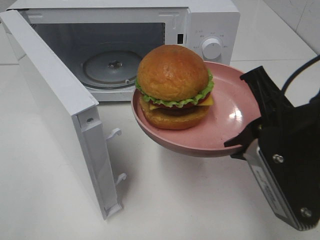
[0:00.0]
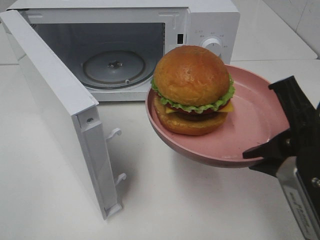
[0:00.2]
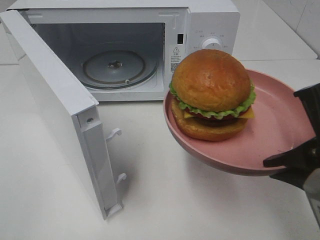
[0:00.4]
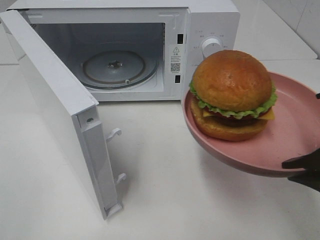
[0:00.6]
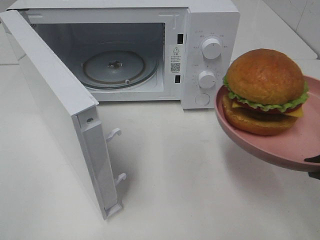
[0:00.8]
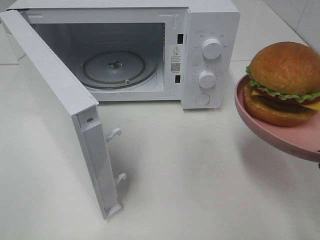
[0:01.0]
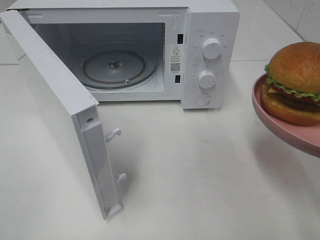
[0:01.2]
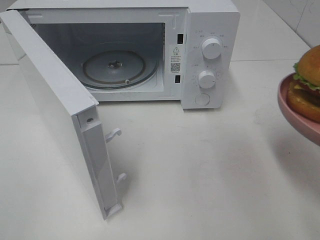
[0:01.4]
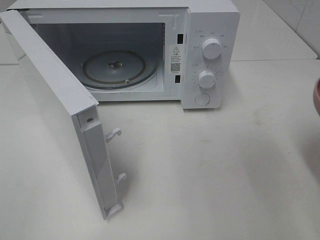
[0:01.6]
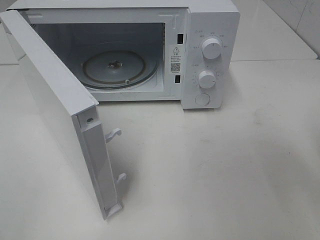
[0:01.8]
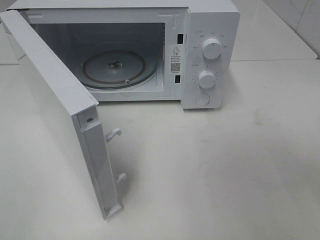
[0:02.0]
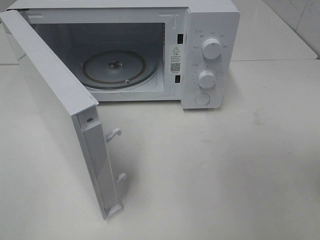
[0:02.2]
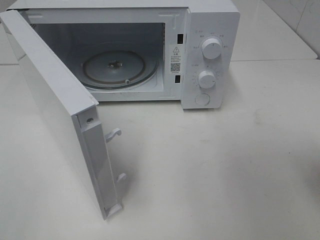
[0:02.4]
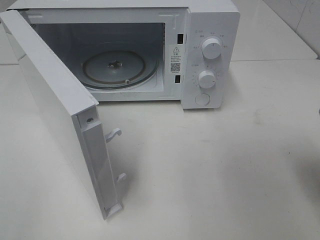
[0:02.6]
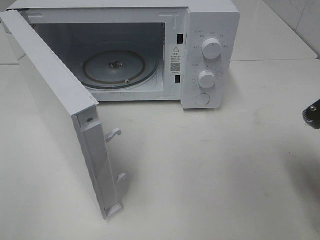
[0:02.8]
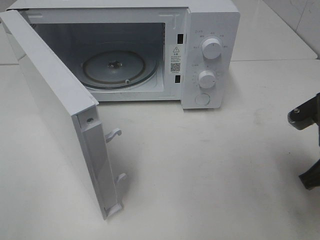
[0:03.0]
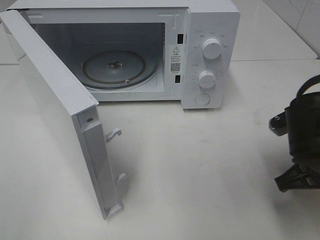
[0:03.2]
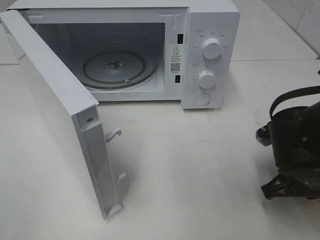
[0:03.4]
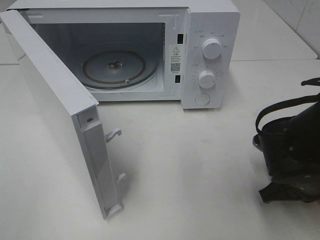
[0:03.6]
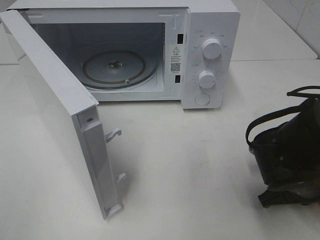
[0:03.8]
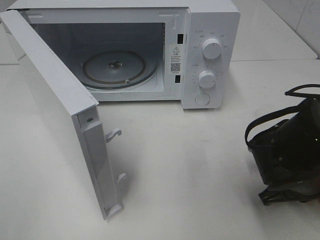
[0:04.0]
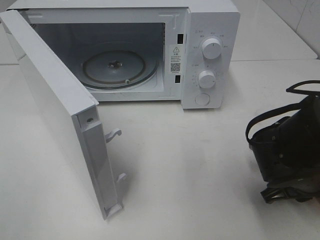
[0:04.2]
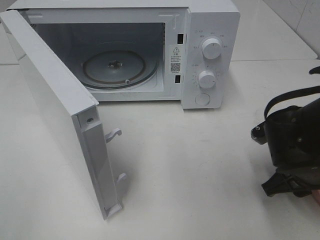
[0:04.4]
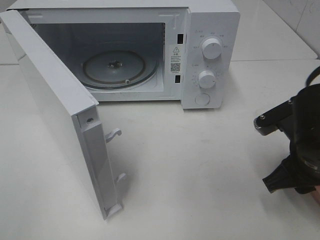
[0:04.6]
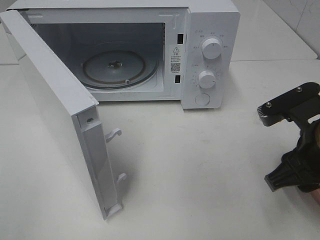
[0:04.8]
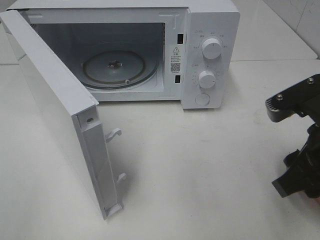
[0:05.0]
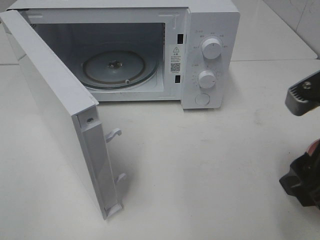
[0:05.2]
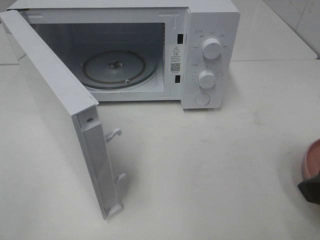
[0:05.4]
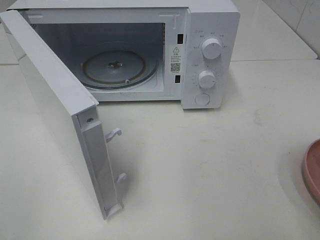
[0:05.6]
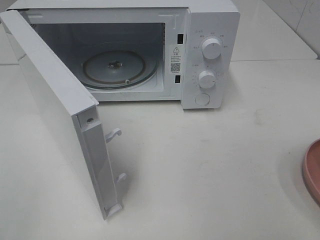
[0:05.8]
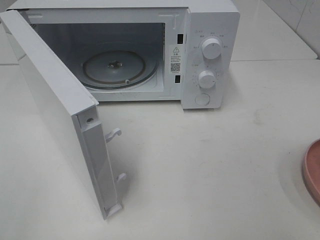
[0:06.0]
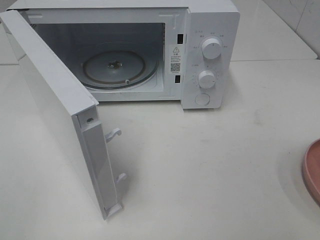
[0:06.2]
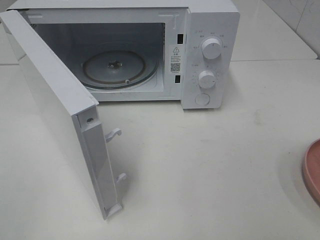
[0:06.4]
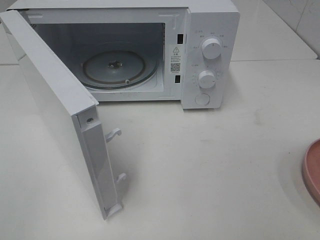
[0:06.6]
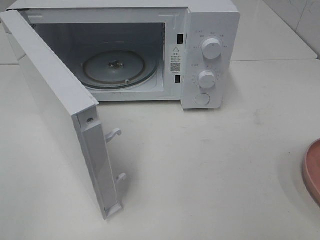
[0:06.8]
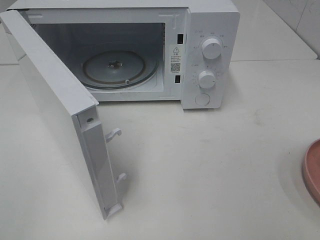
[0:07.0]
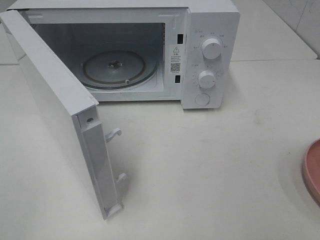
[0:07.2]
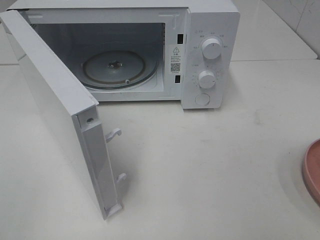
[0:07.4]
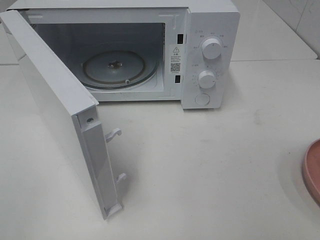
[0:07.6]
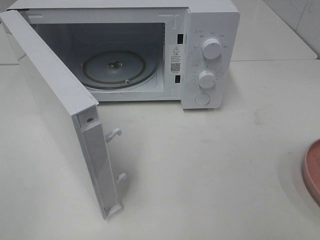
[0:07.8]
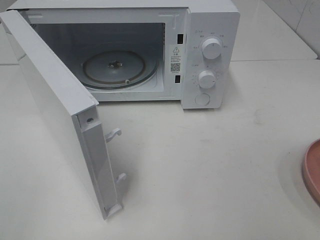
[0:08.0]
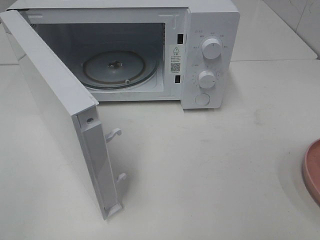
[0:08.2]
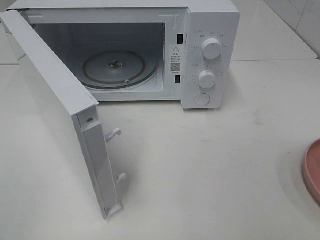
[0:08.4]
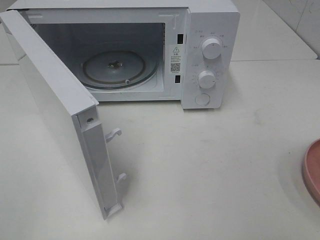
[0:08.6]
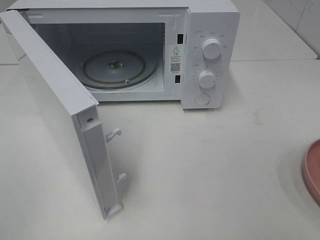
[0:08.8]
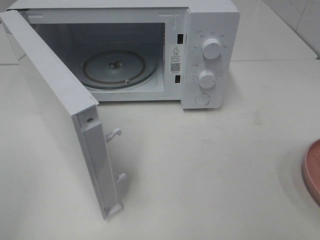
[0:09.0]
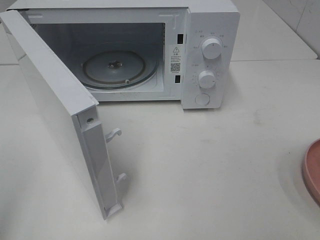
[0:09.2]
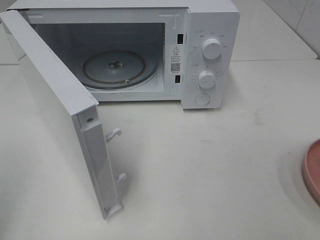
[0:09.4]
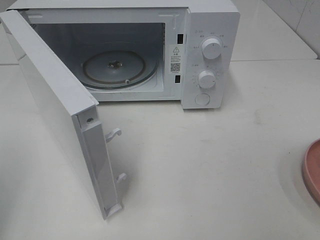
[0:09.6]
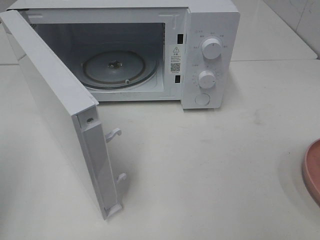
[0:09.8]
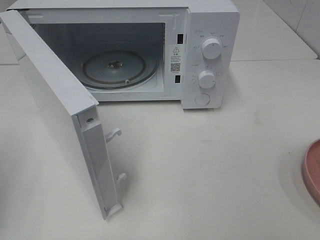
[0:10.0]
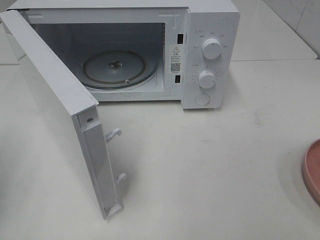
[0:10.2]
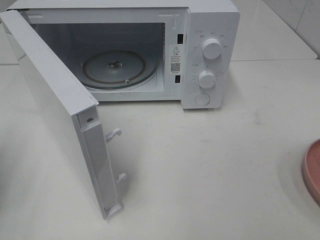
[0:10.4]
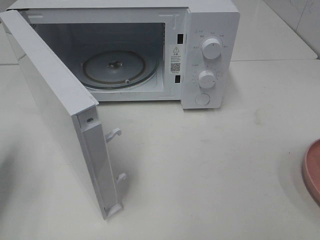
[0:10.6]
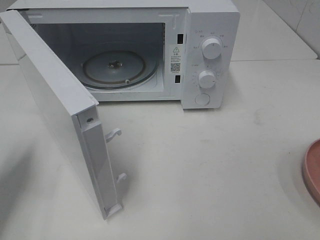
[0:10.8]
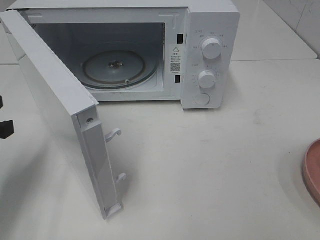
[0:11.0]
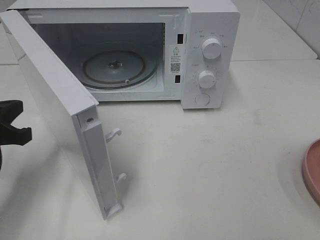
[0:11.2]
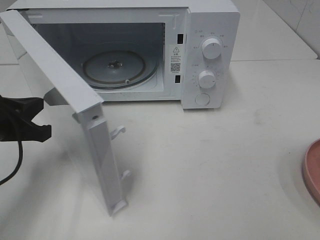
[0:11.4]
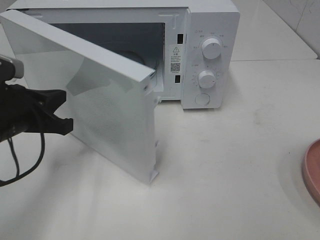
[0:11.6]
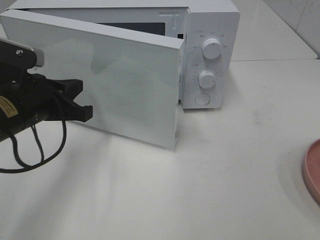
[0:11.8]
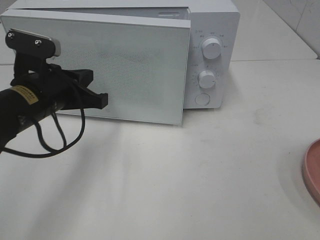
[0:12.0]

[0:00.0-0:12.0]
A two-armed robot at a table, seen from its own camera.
Task of the whole recording: Heat the burger.
Step, 0:00.0 to 0:04.6: Right hand: place the plate on the table.
0:00.0 to 0:01.6: The right gripper shifts roughly 10 cm to the right.
0:01.6 to 0:03.0: The right gripper goes approximately 10 cm forward and downward.
0:03.0 to 0:04.4: The right gripper heads downward, covering some 5 cm, and opens its fingers.
0:04.4 to 0:06.0: The right gripper shifts approximately 25 cm upward and backward.
0:10.4 to 0:12.0: The left gripper heads to the right and forward, covering some 20 cm.

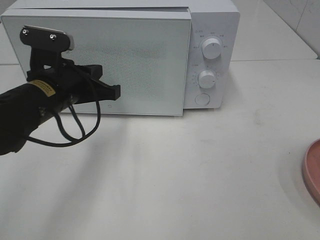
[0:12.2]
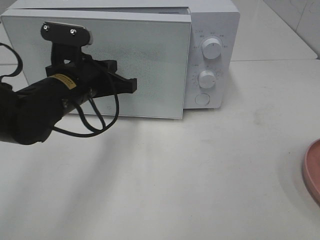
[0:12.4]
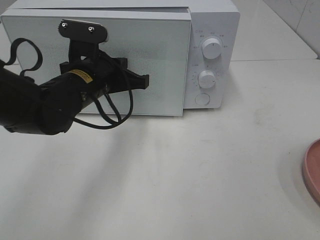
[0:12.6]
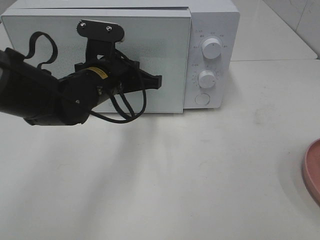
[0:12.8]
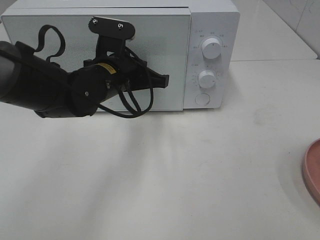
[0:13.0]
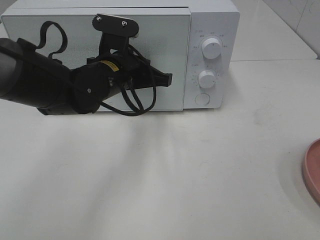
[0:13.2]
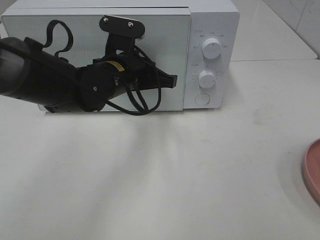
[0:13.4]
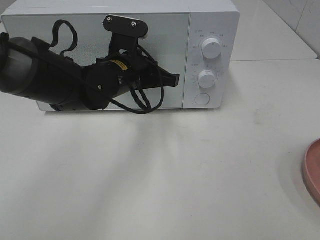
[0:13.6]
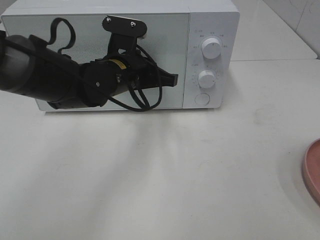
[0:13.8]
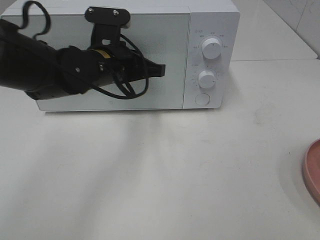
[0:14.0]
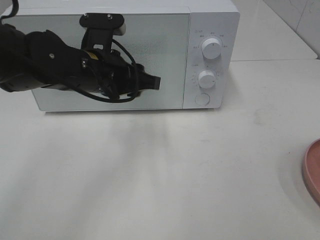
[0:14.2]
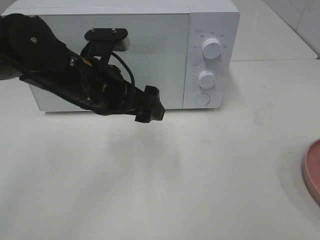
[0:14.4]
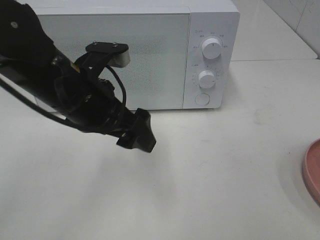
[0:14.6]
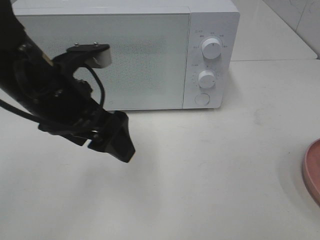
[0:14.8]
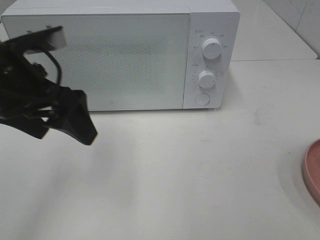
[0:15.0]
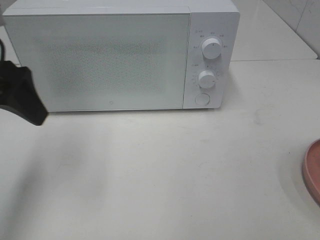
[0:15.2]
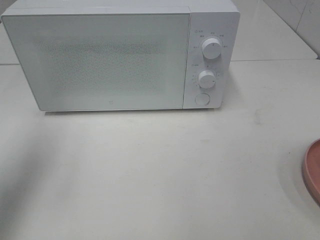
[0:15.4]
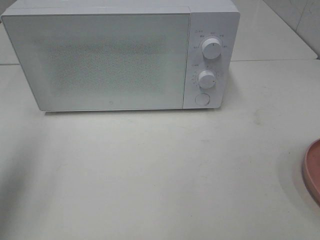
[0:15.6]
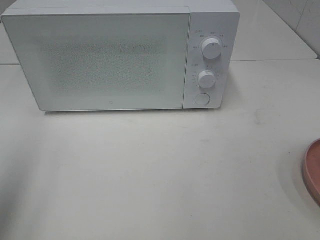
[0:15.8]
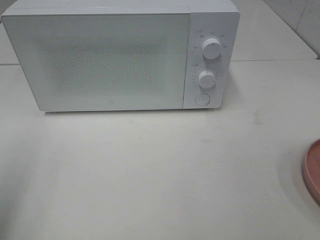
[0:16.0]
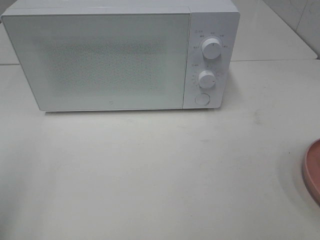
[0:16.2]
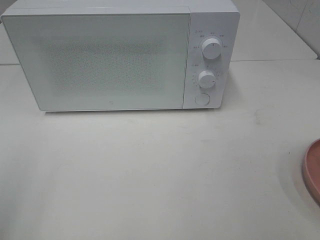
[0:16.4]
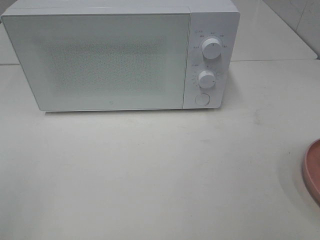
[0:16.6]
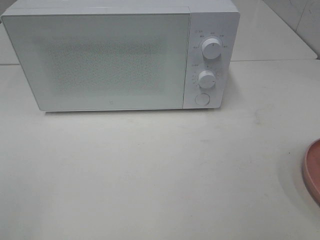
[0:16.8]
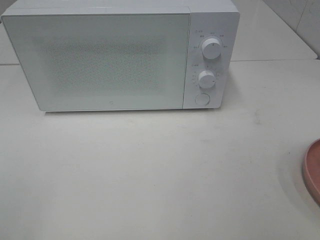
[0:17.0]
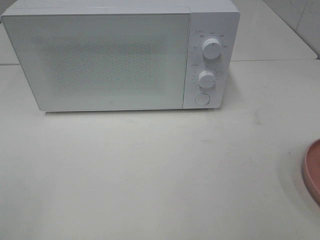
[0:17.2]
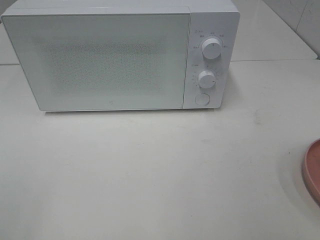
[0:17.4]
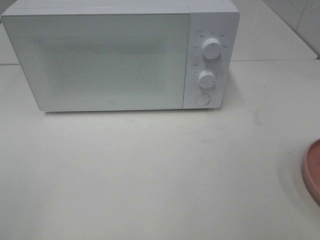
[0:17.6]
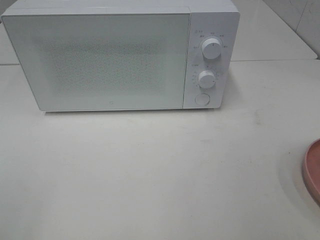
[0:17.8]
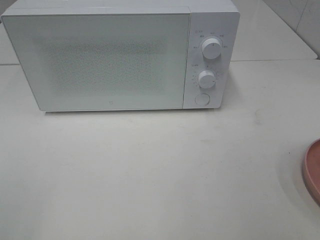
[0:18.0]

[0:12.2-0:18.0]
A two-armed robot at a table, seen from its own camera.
Task of the whole recording: Heat the burger.
Step, 0:12.2 to 0:14.2: Left hand: close the microwave door.
0:12.2 to 0:13.6: The left gripper is displaced to the right and forward by some 10 cm.
0:13.6 to 0:15.0: The left gripper heads to the left, backward and upward, covering roughly 20 cm, and opens up.
0:15.0 to 0:16.6: The left gripper goes about 25 cm backward and to the left.

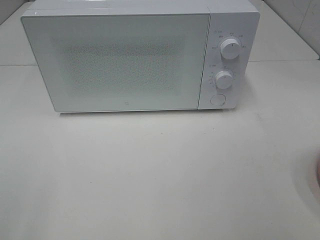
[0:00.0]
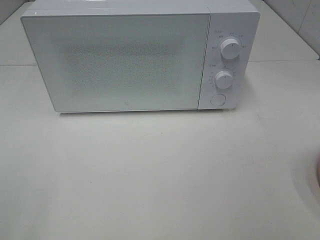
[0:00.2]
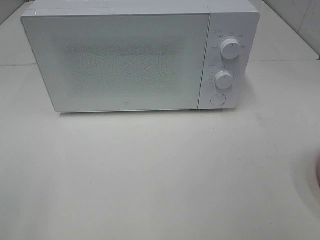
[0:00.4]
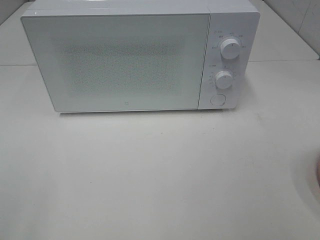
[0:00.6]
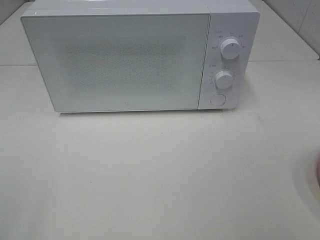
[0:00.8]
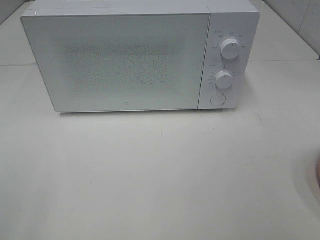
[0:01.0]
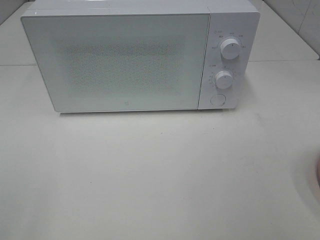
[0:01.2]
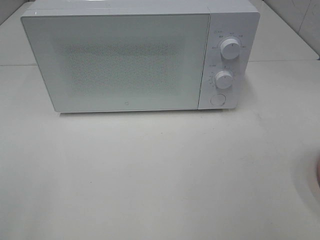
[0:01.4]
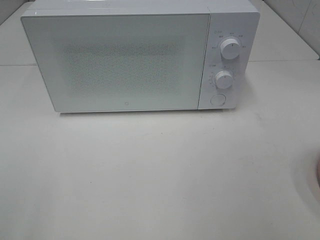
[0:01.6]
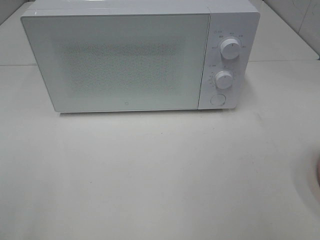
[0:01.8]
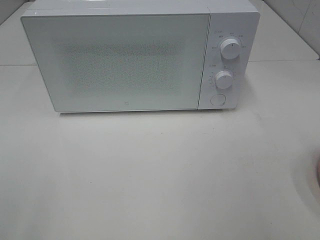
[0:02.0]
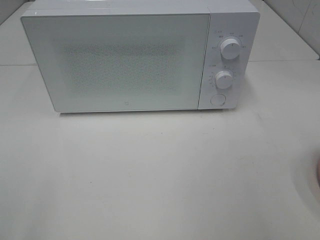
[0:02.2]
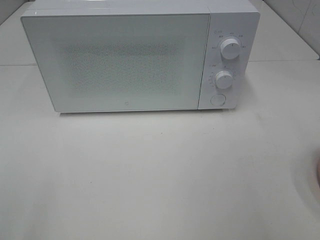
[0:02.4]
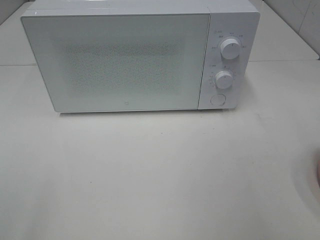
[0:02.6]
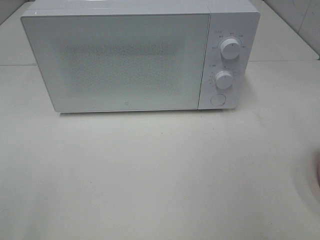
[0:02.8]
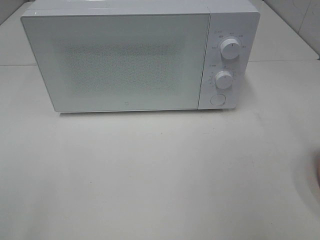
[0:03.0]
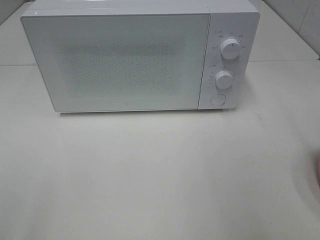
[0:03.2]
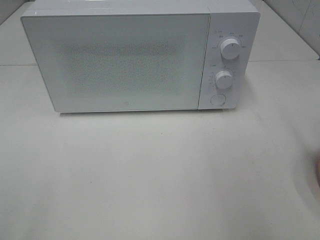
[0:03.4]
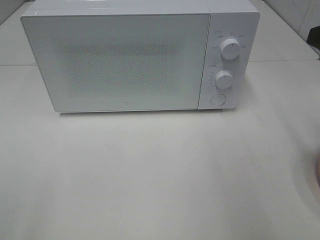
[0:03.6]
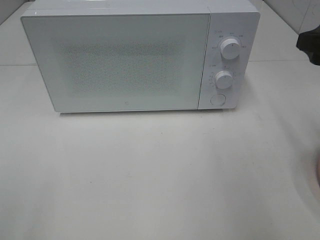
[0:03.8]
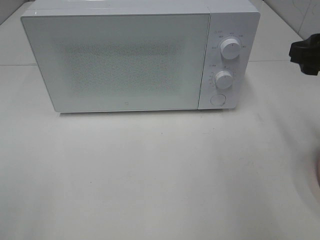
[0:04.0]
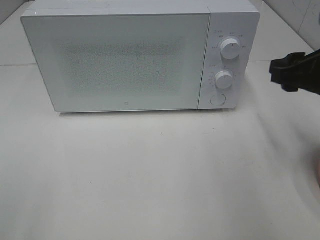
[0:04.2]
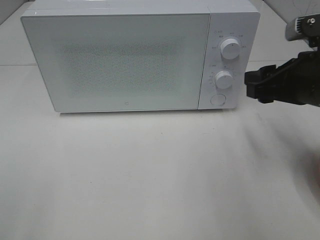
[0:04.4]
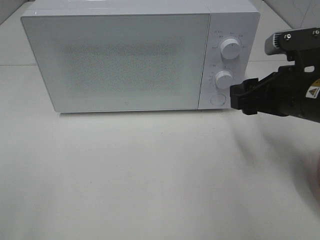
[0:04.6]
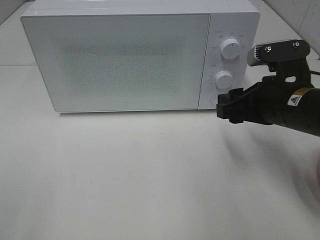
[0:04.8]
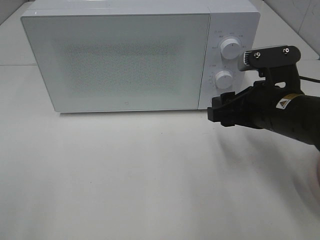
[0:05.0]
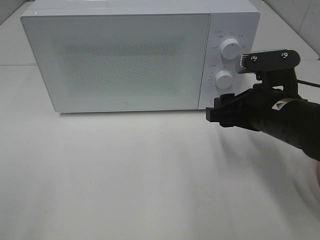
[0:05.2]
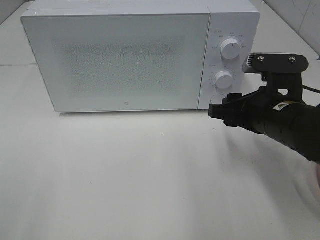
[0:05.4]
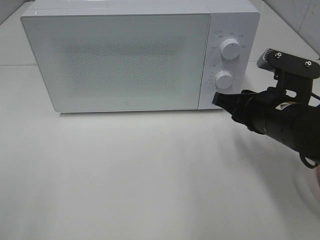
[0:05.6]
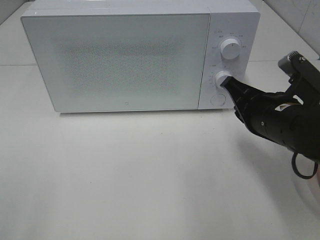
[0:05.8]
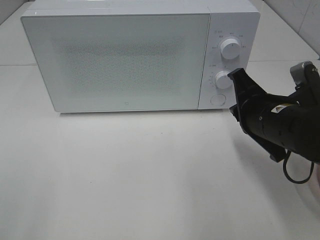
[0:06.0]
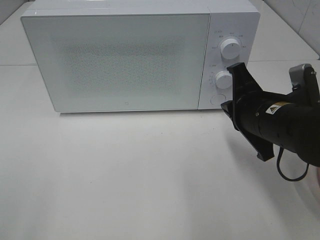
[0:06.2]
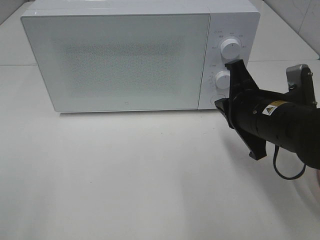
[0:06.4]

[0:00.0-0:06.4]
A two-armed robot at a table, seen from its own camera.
Task of the whole recording: Heat the burger.
0:03.2 to 0:04.8: The right gripper is displaced downward, to the left and forward by some 20 cm.
0:04.8 to 0:06.4: The right gripper closes up.
